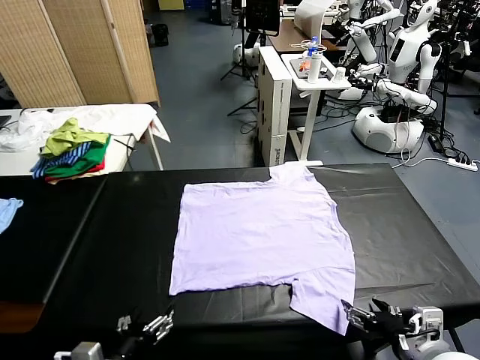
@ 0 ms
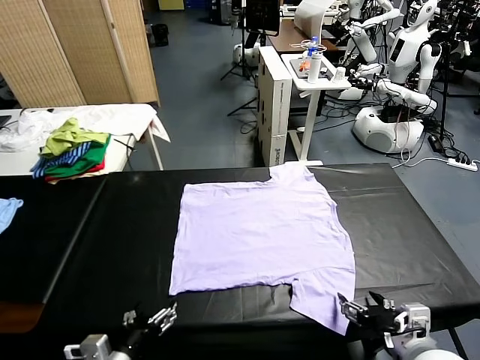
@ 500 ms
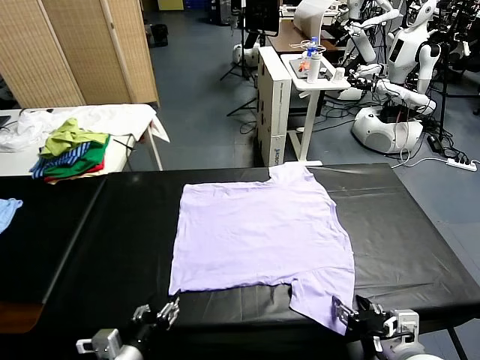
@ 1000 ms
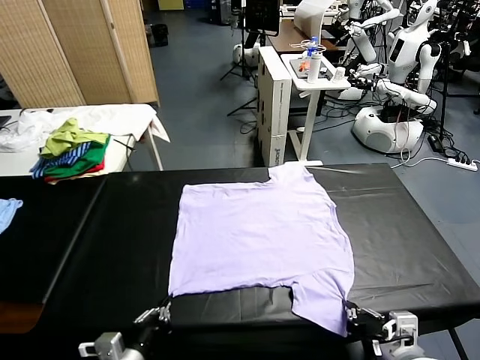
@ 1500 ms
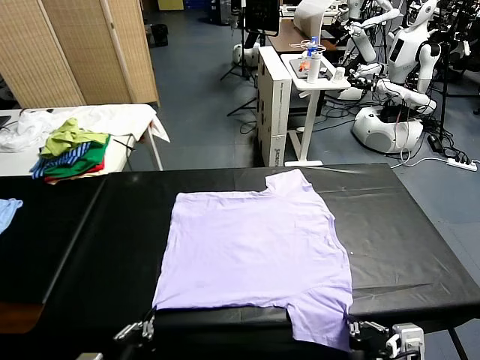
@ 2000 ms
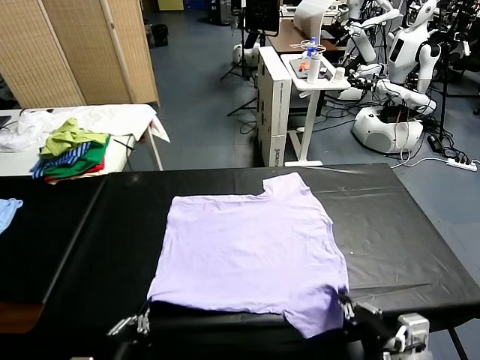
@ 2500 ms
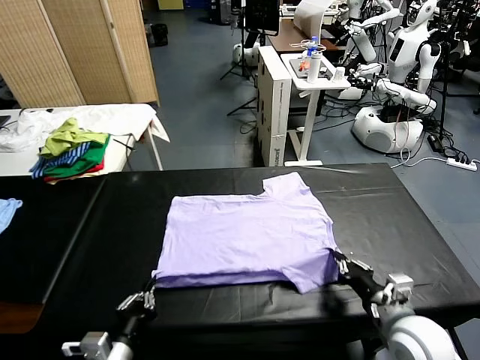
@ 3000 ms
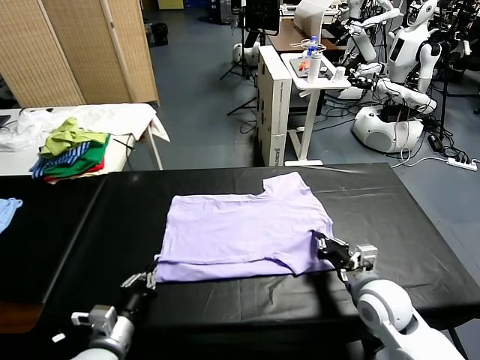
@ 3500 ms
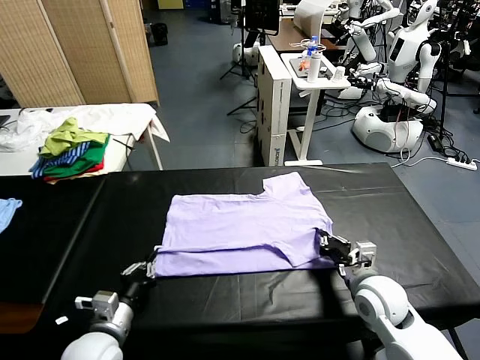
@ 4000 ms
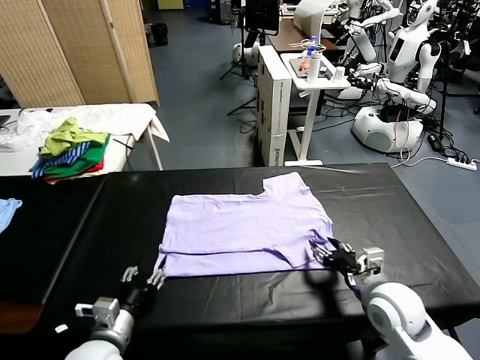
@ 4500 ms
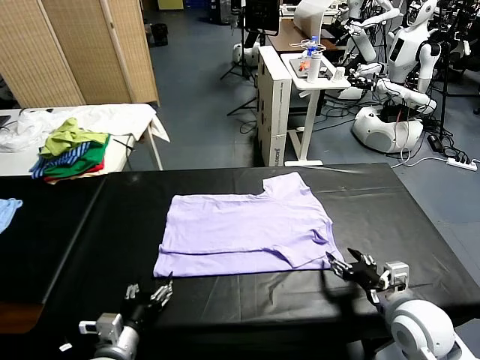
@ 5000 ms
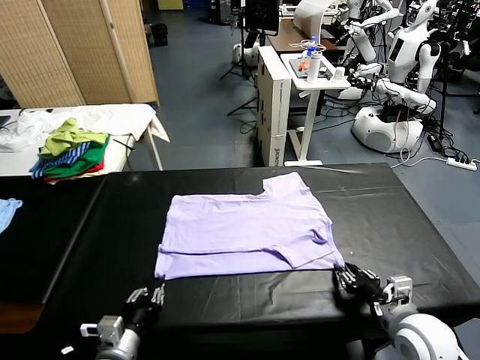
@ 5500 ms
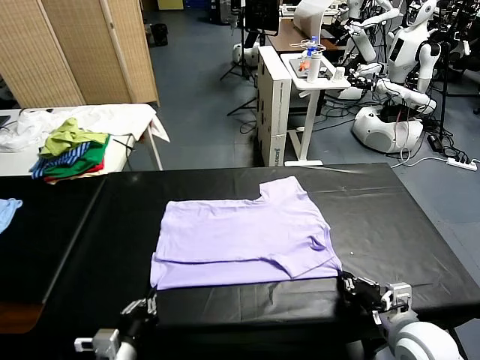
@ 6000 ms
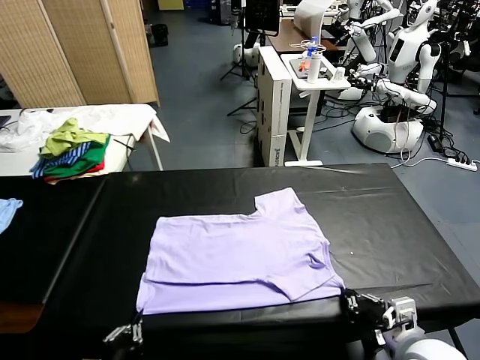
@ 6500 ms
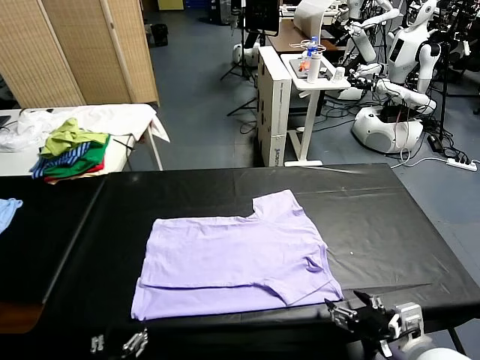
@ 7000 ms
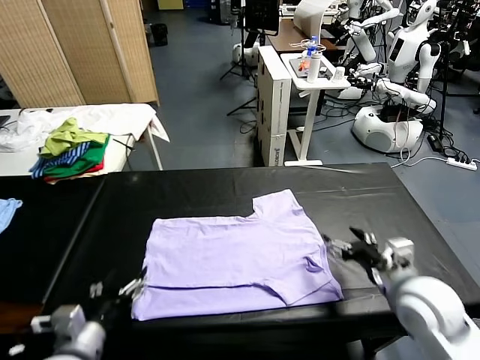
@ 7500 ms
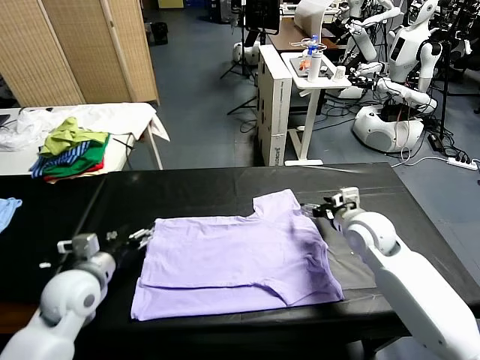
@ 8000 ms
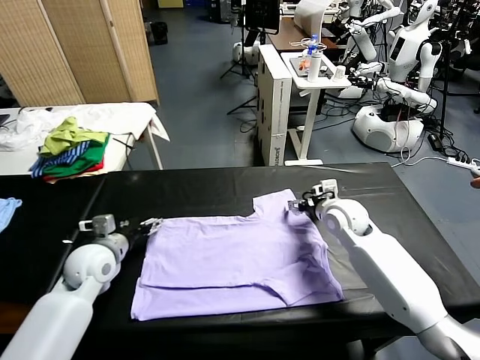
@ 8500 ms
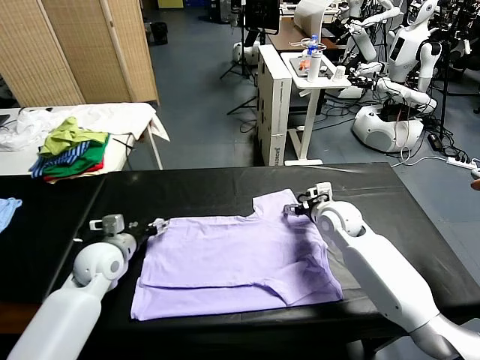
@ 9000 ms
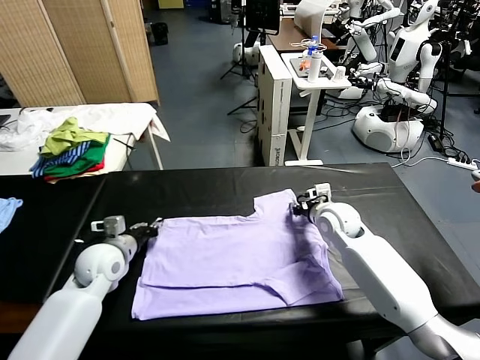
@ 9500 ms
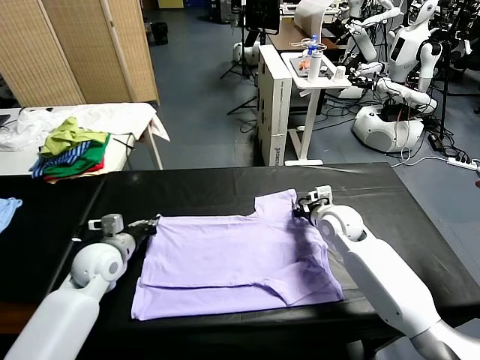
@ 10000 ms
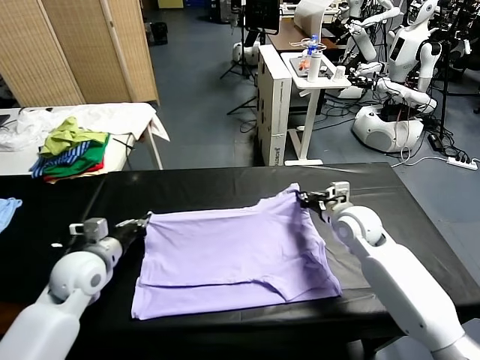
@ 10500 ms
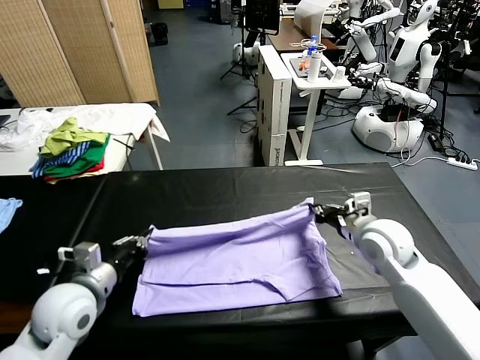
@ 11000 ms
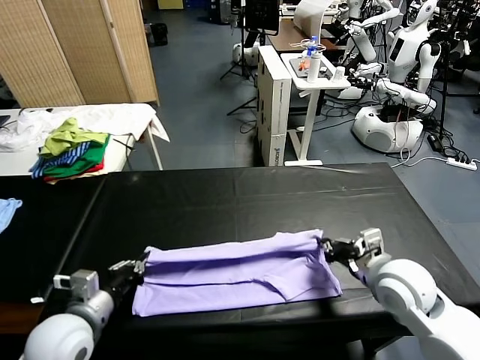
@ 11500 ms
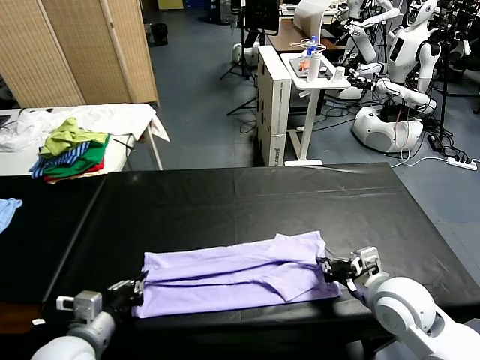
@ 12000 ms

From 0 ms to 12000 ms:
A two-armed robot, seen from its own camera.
Task of the whole recording: fold and organize the clothes.
Step, from 0 ms to 1000 ms: use both grippers simultaneously to clamp the lower edge of the clothing fabric.
Step, from 1500 ms to 4500 ms: use both grippers to drag the lower edge of the fabric forward and fold it over the upper edge.
Step, from 5000 ms to 6500 ms: Drag the clothes downward with both gripper.
Step, from 7500 ms to 10000 ms: use both grippers simultaneously to clamp the upper edge of the clothing fabric.
From 2000 ms to 4000 ms: The two grippers go some 15 cm forward.
From 4000 ms to 6000 ms: The two grippers go some 10 cm backward. The right gripper opens, then closes again. The left gripper opens and closes again.
From 6000 ms to 8000 ms: The left gripper shifts roughly 20 cm forward and to the left, and opens its fingers. Meanwhile the right gripper heads forward, covering some 25 cm, and opens up.
From 8000 ms to 10000 ms: The right gripper closes up; the left gripper goes about 5 cm forward, and closes up.
From 10000 ms to 12000 ms: The two grippers go approximately 20 cm backward.

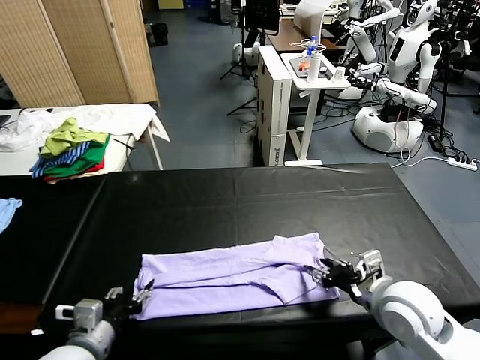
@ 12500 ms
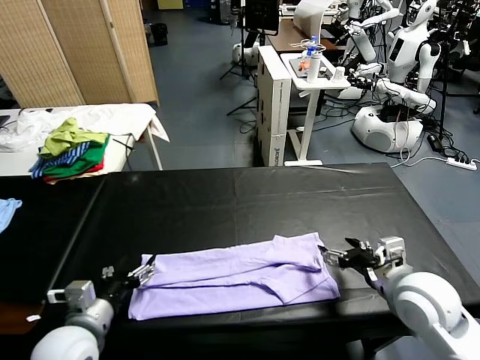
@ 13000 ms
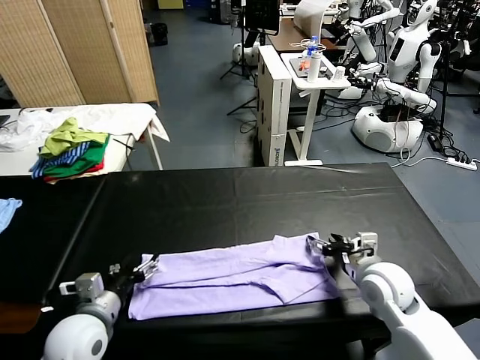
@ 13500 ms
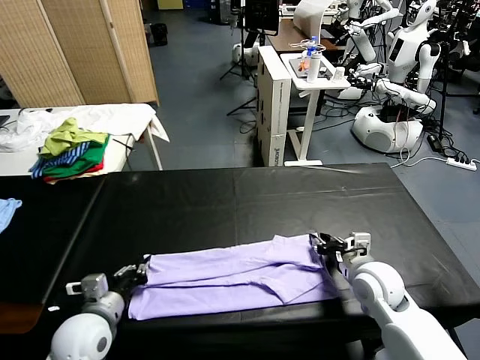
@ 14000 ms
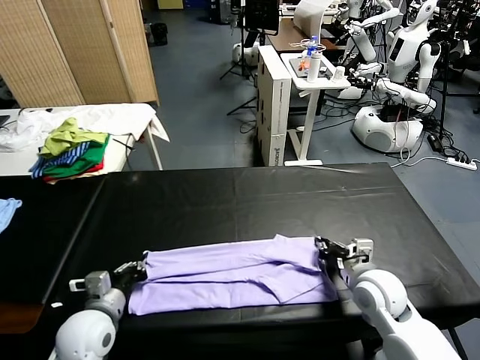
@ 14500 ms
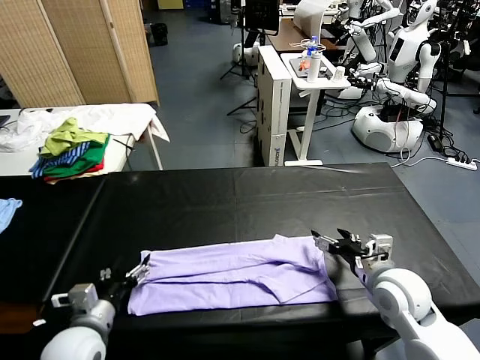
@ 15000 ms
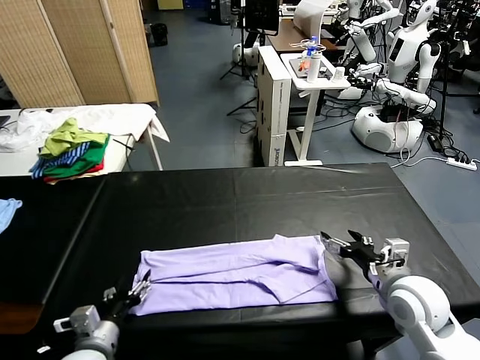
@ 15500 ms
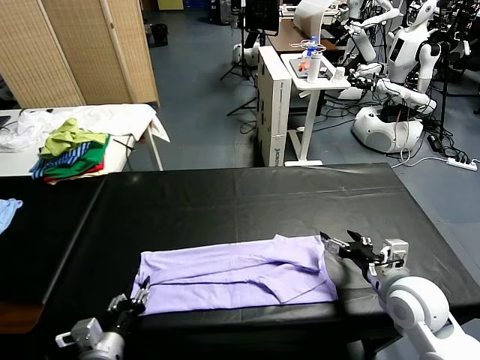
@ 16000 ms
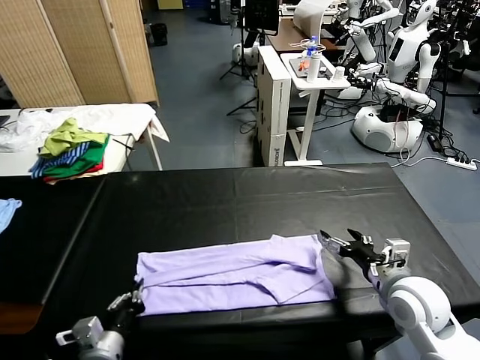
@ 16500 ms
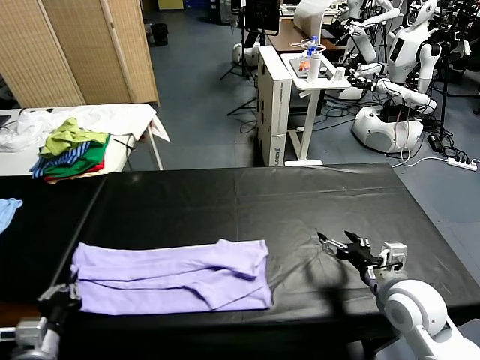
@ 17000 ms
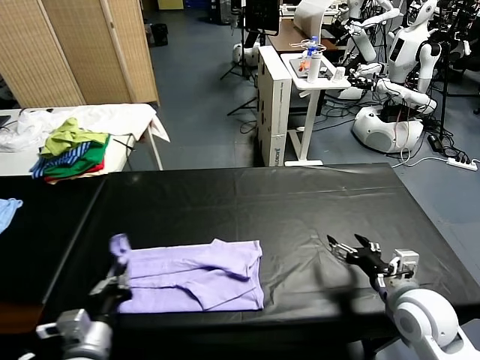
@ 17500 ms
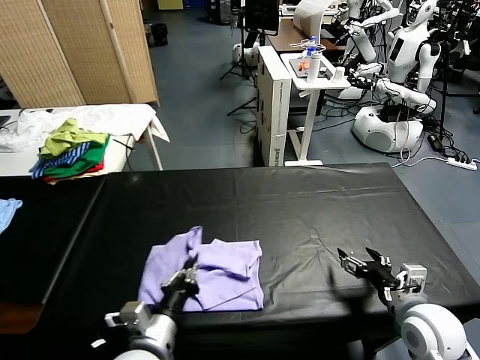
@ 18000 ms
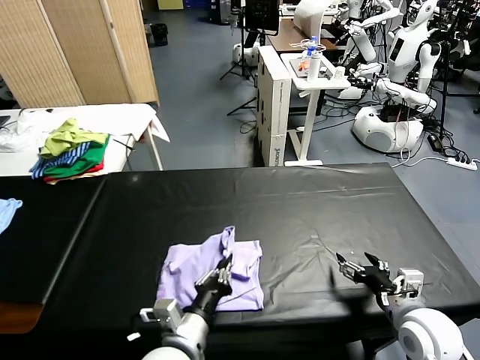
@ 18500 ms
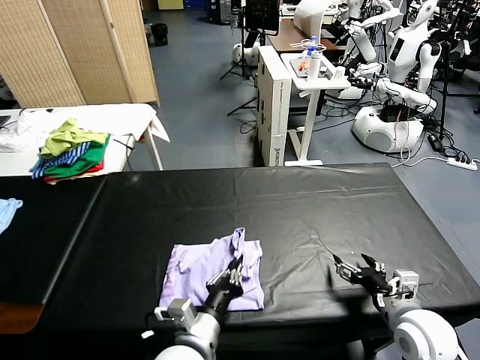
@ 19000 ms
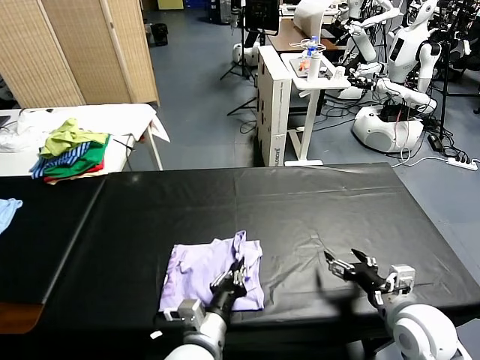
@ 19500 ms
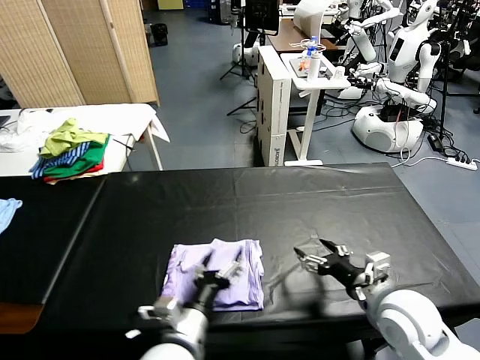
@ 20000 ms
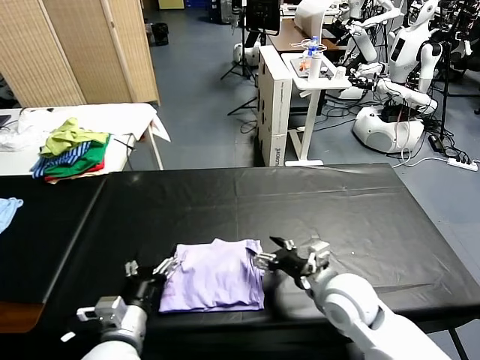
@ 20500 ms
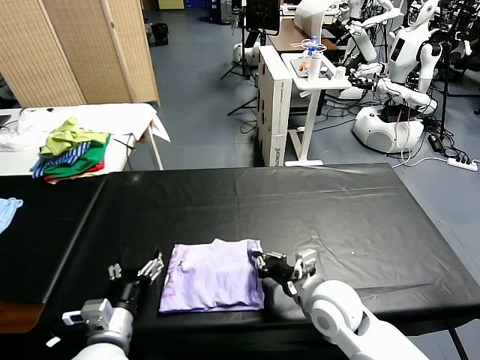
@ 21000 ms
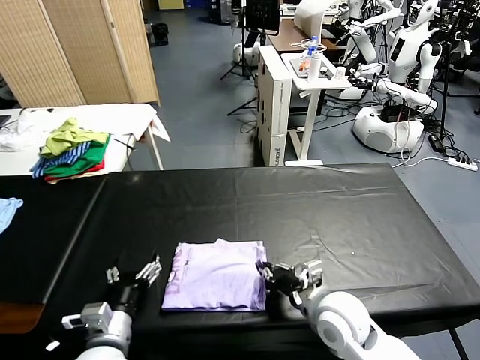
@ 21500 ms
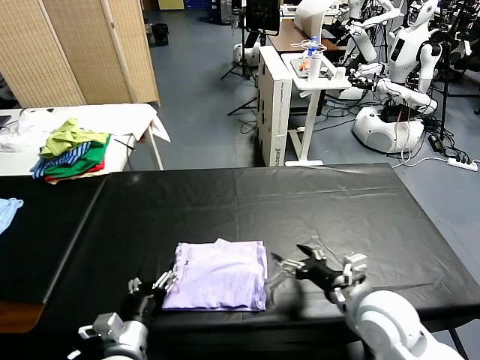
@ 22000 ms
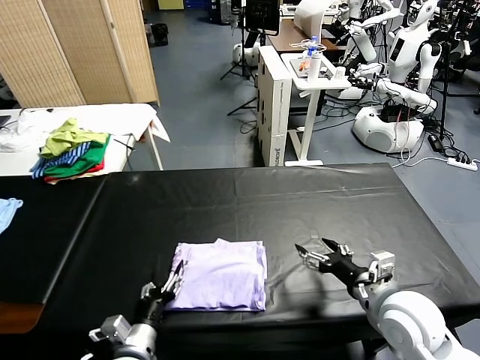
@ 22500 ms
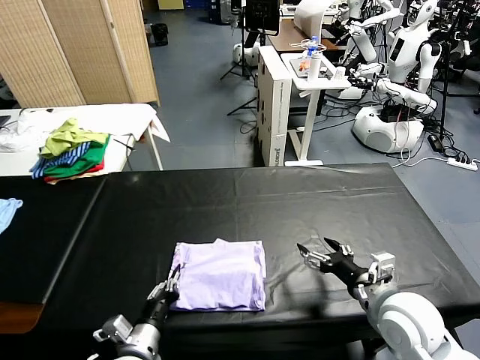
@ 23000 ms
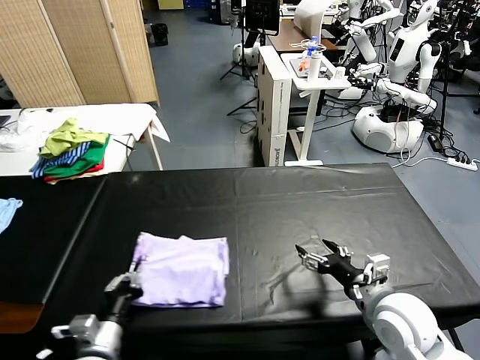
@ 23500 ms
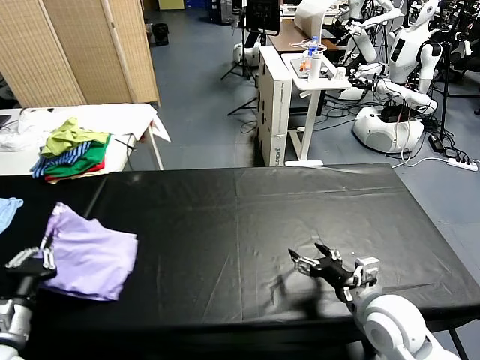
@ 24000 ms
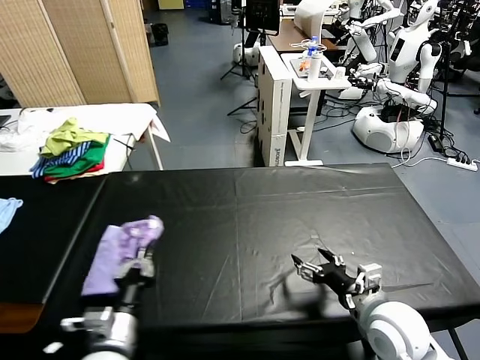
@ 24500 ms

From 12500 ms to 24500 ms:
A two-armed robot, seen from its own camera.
Task of the whole recording: fold and organize the clothes.
Step, from 13000 ms to 16000 ms: use the left gripper to clamp the left edge of the fabric.
Step, from 16500 ms to 19500 ms: use the left gripper to drag the left edge of the fabric to the left and folds it over the right edge.
From 12500 ms to 14500 ms: The right gripper goes roughly 10 cm downward and forward, and closes its fingers. The left gripper is displaced forward by approximately 5 cm, and closes its fingers.
From 14500 ms to 16500 ms: The right gripper moves roughly 5 cm, and opens its fingers. The left gripper shifts some 10 cm backward, and opens and closes again.
From 16500 ms to 18500 ms: The right gripper moves about 5 cm, while the left gripper shifts about 15 cm to the right.
From 18500 ms to 20500 ms: The left gripper goes about 10 cm to the left, and opens its fingers; the right gripper travels to the left and forward by approximately 15 cm.
From 20500 ms to 22500 ms: The left gripper goes approximately 5 cm downward, while the right gripper shifts about 10 cm to the right and backward, and closes and opens again.
From 22500 ms to 24500 ms: The left gripper moves upward, roughly 10 cm, moves some 15 cm to the left and comes back, and closes its fingers.

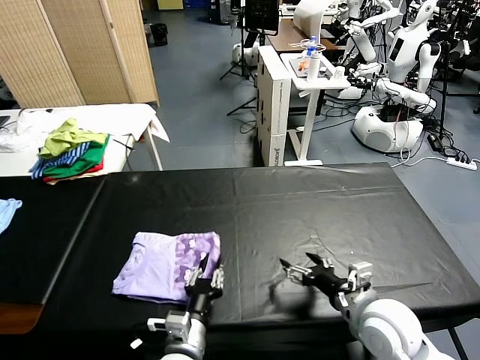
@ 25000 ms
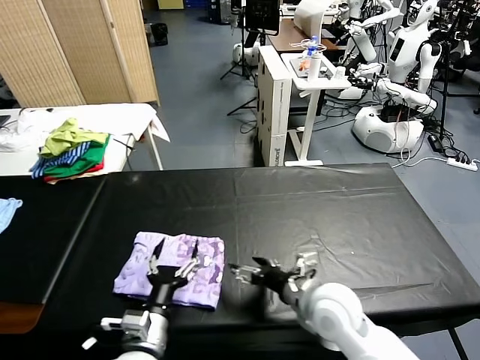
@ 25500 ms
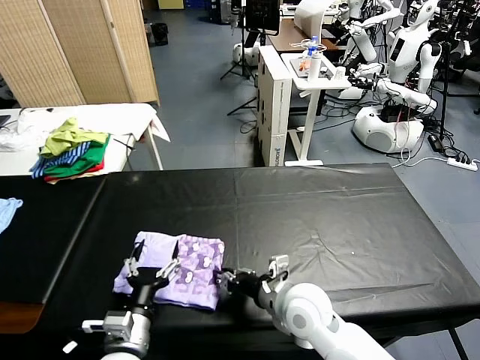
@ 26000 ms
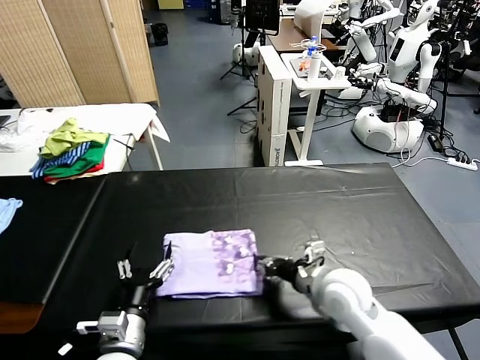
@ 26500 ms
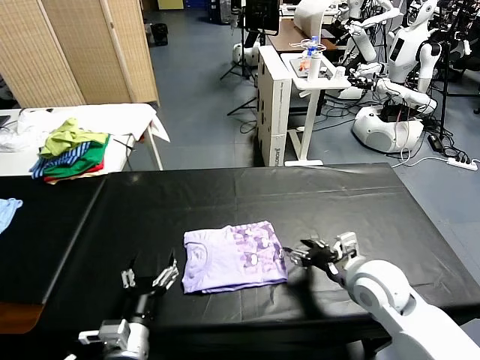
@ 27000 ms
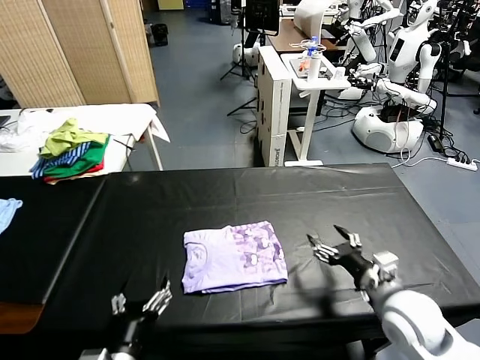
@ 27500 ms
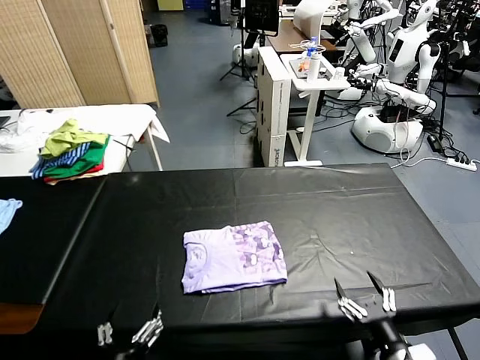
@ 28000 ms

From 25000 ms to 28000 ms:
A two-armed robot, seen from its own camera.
Task of the whole recording: fold and organize the clothes.
Step, from 25500 ms to 26500 ms: Drag the clothes to the center of the table.
From 25000 ms to 26500 ms: The right gripper travels to the left and forward by approximately 10 cm, and closes. The left gripper heads to the left, covering about 10 cm, and opens its fingers.
From 26500 ms to 28000 ms: The right gripper moves backward and to the right, some 20 cm, and opens up; the left gripper heads backward, covering about 10 cm.
